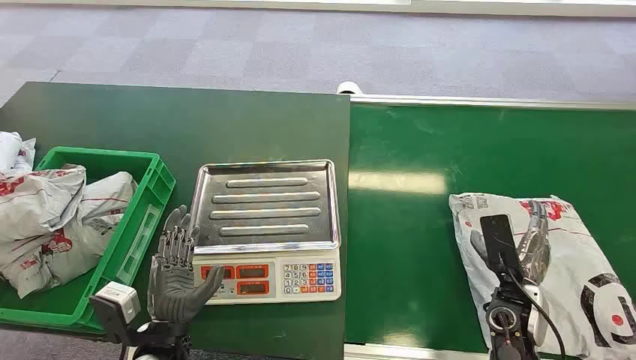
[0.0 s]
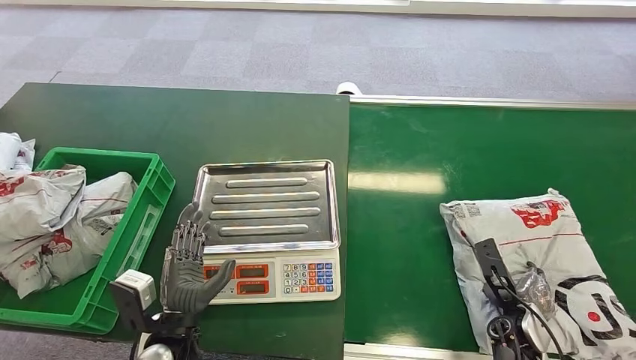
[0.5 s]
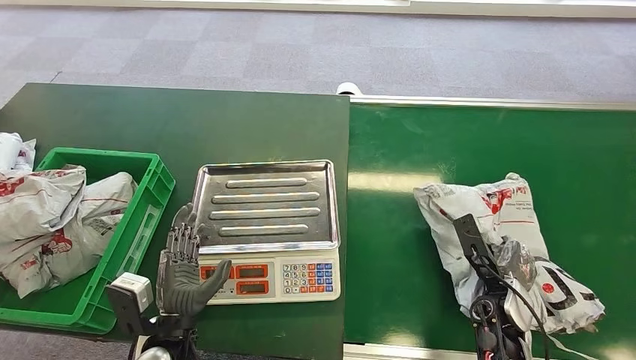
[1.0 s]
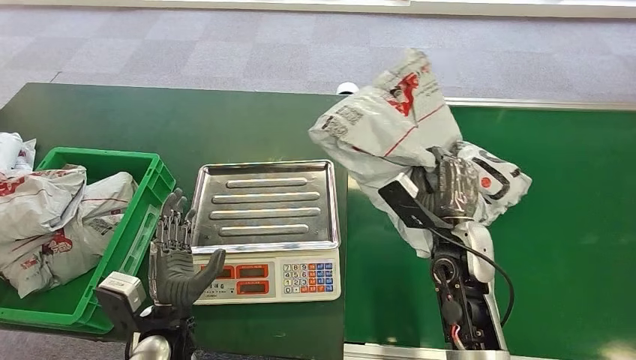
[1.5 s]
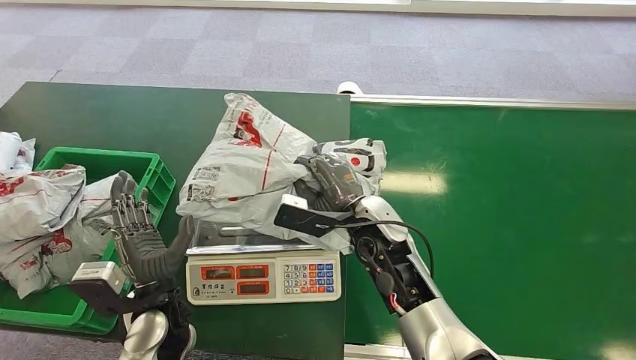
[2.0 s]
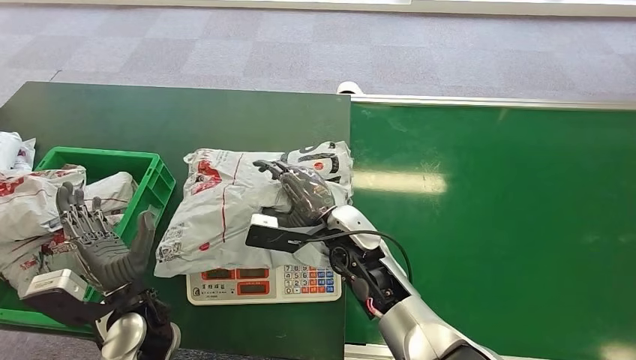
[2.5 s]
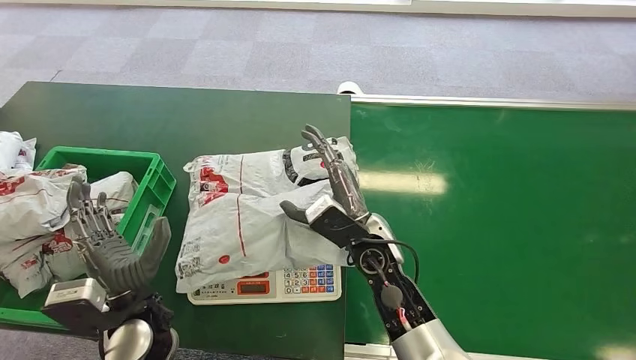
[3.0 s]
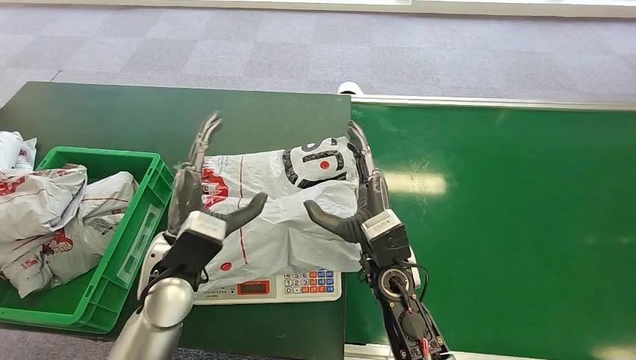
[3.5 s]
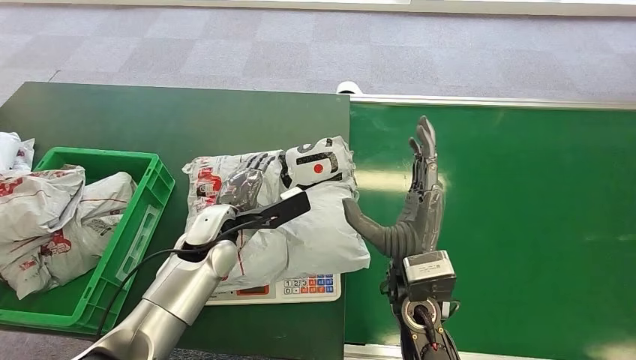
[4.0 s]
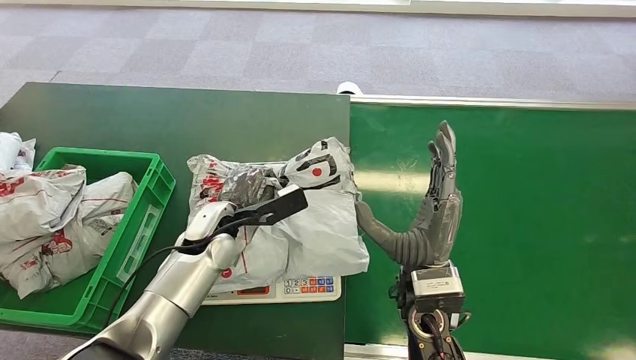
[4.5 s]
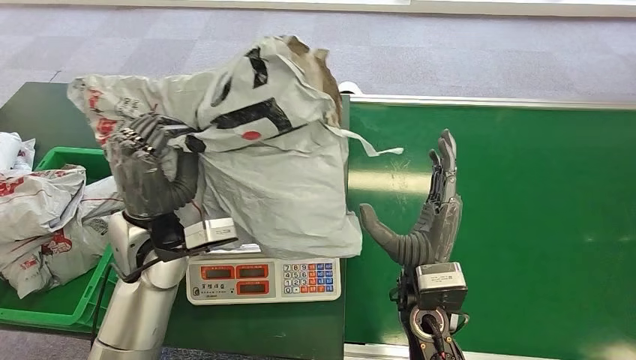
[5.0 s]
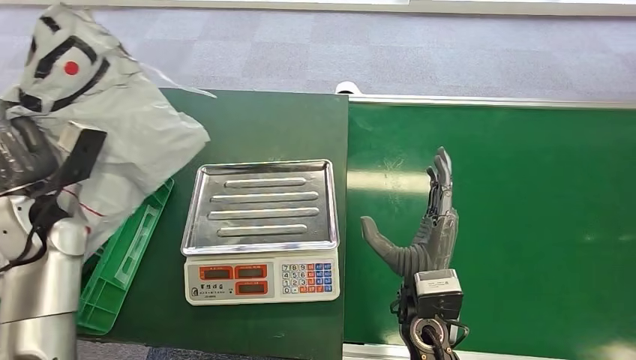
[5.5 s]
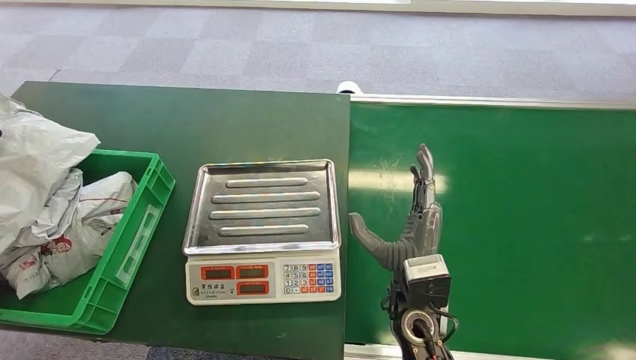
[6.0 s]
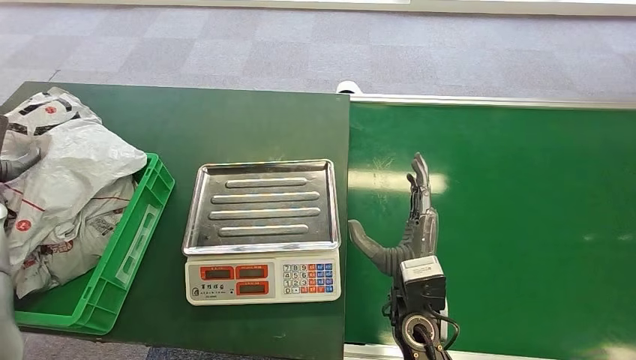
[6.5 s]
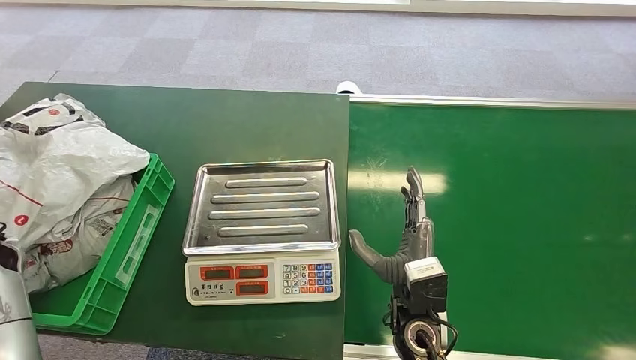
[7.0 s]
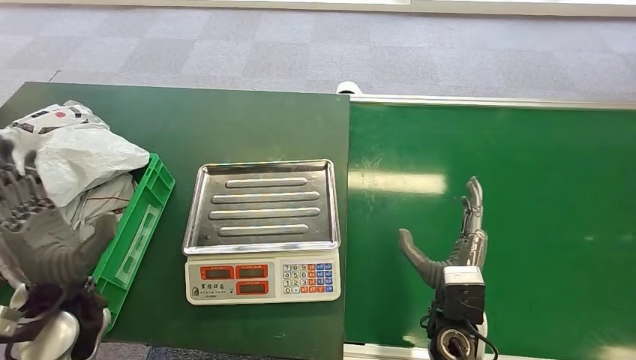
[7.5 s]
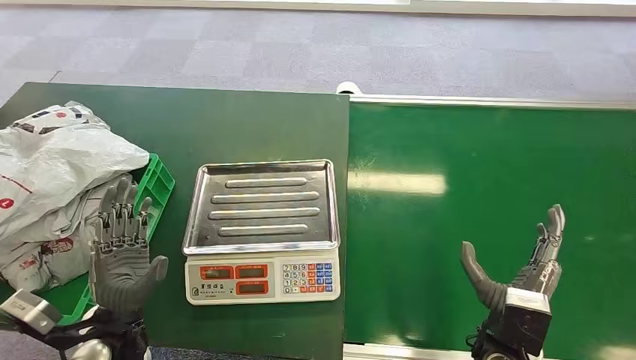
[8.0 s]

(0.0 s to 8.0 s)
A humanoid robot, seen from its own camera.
Task of the whole recording: Weigh the package on the weighing device and place it in the left basket.
Step, 0.0 s - 1.0 s: Pick up the package from the conveyor belt.
Step, 1.5 s - 4.0 s: Place the package onto the inbound machine.
Step, 4.5 s - 5.5 s: Pick up the package from the inbound machine.
Step, 6.0 s - 7.5 s: Place the package into the parcel locker.
4.0 s - 6.0 s: The left hand goes some 40 cm to the left.
6.0 s - 8.0 s: The left hand shifts some 35 cm to the right and backward, while the right hand travels to the right by some 15 cm.

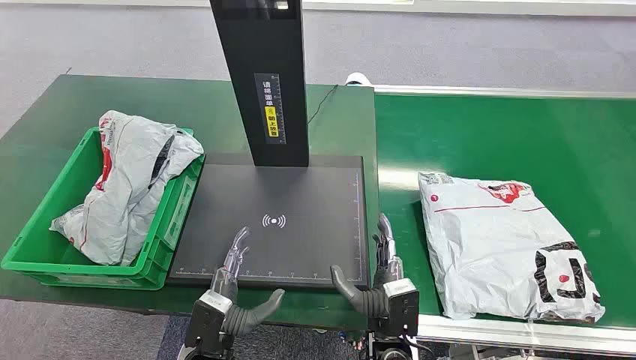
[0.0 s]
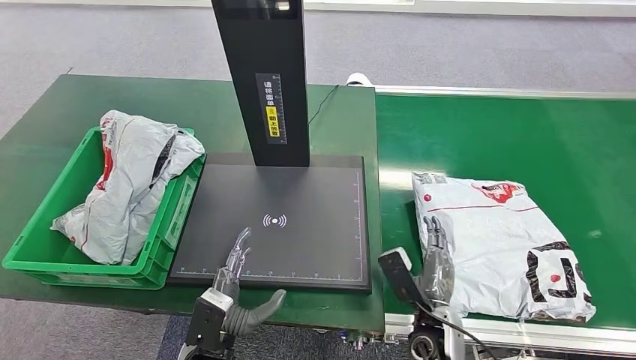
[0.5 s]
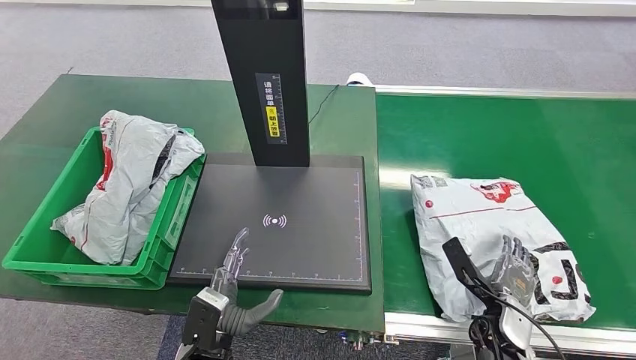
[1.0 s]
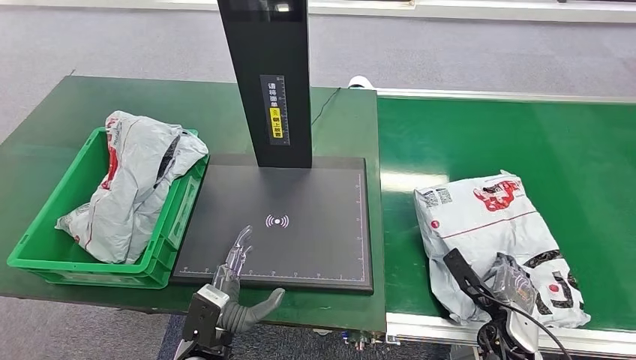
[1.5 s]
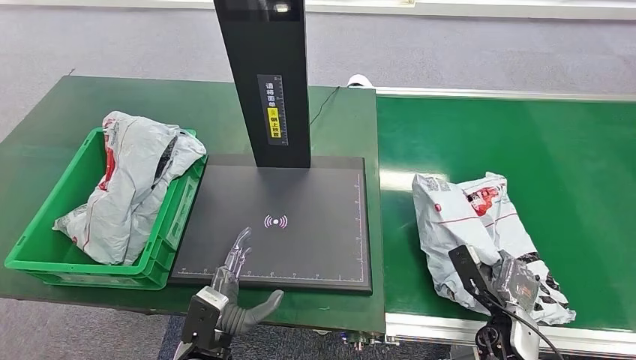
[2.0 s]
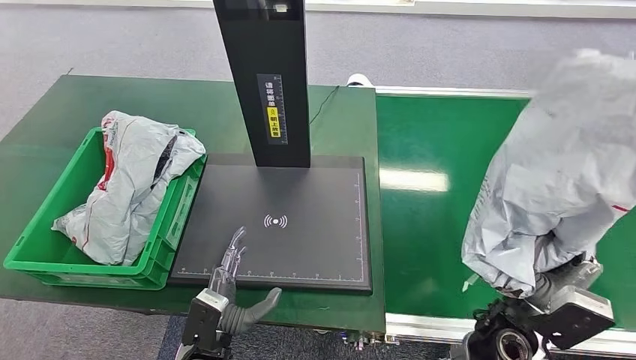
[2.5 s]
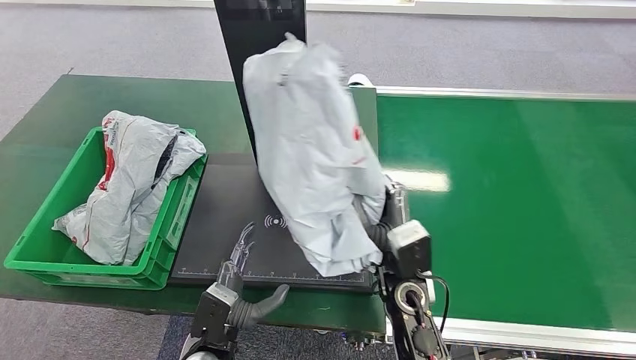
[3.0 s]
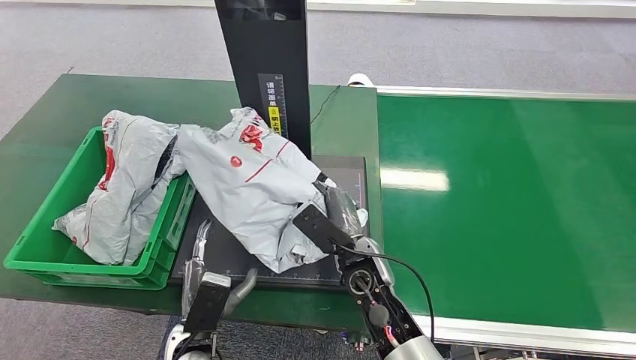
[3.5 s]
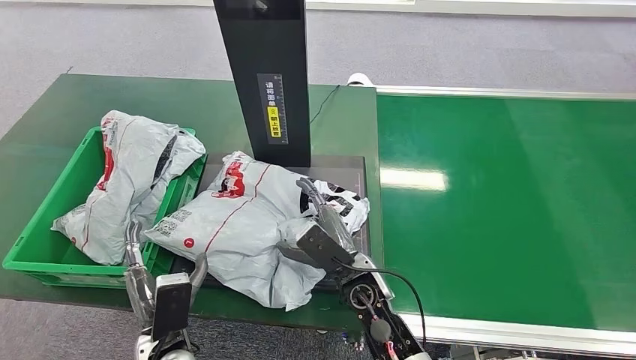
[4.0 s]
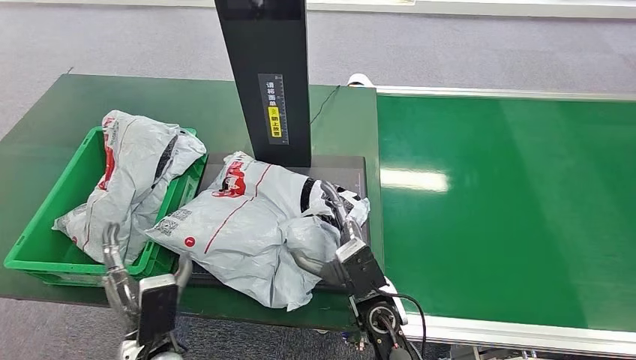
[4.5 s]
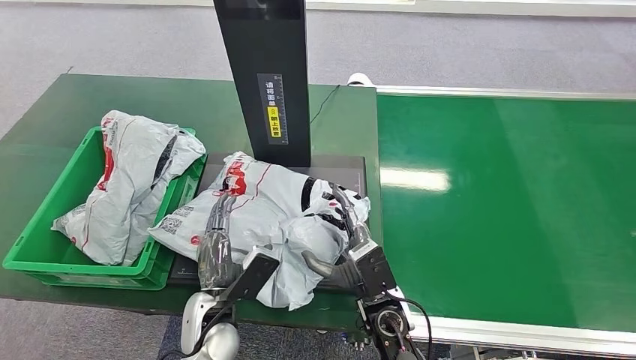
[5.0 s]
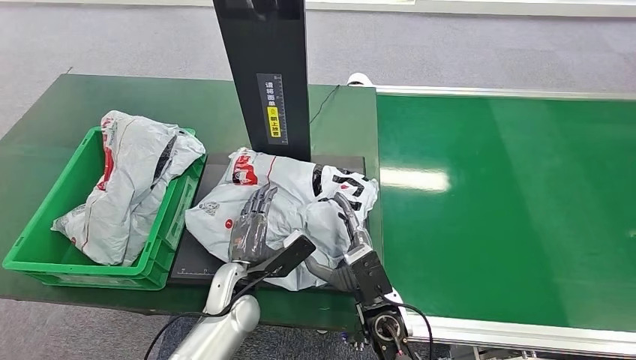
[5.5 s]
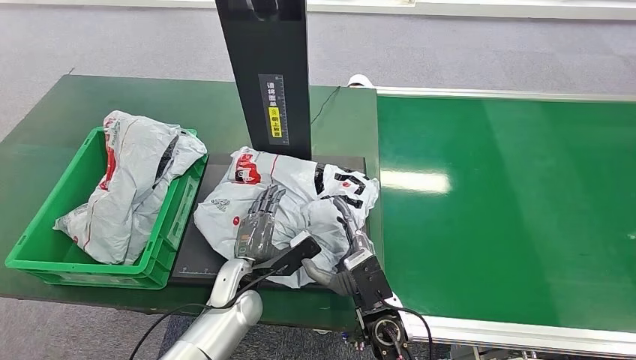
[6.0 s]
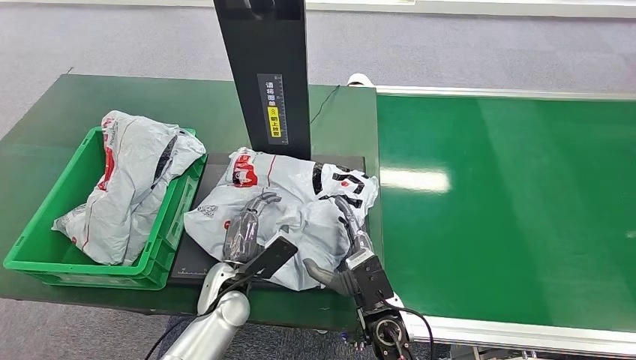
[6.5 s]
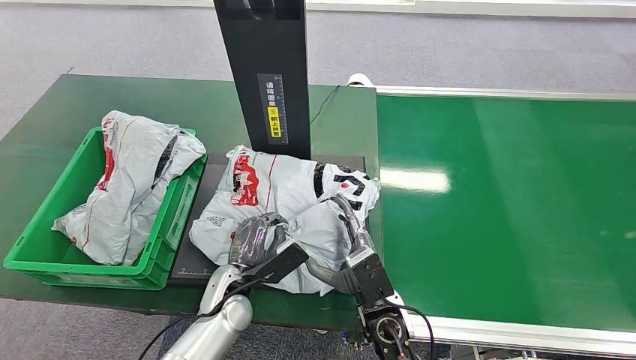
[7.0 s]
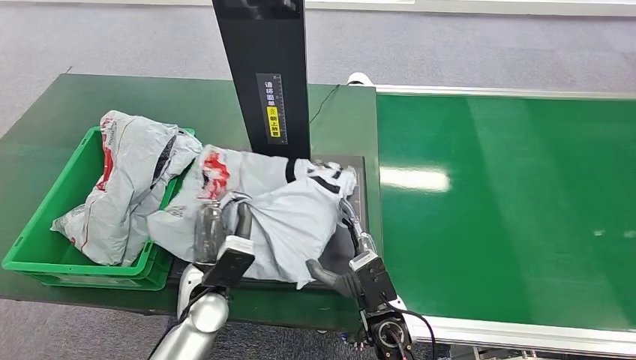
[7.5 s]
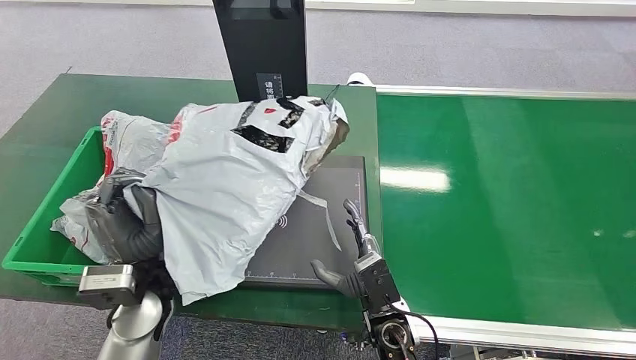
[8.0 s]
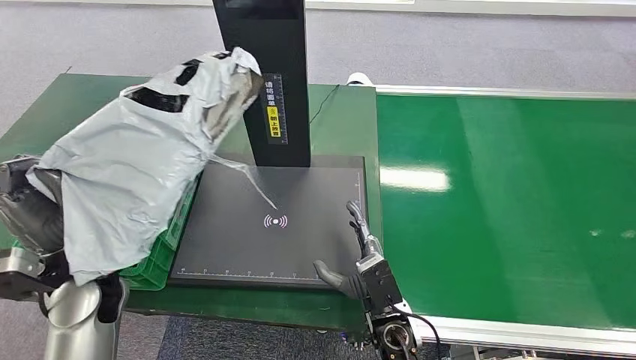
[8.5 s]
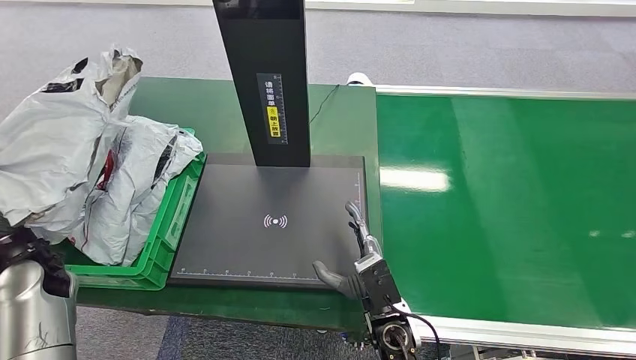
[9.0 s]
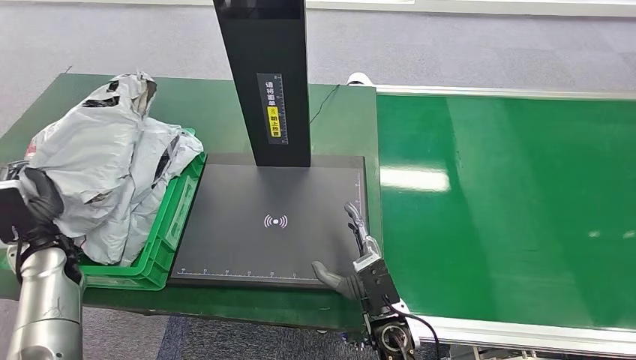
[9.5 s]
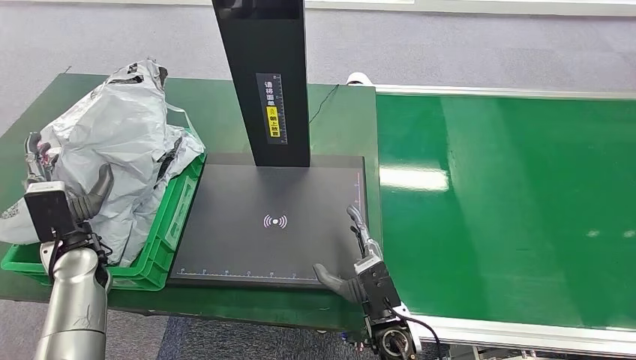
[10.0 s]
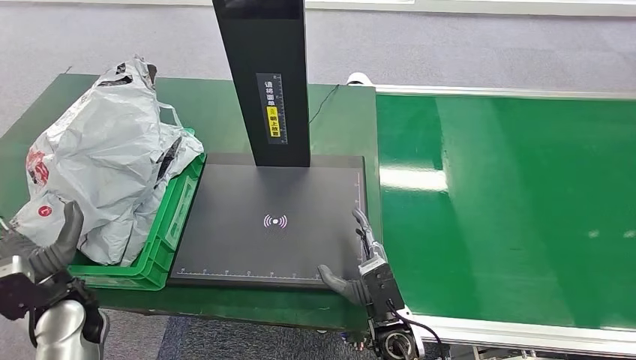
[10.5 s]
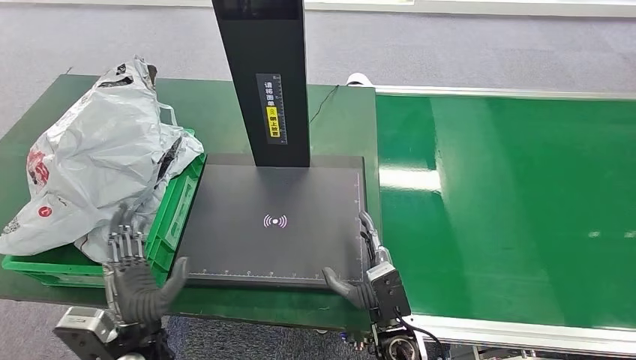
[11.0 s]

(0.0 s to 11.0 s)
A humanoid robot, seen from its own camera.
Task of the whole recording: Weigh the package on the weighing device and place it in the left basket.
Step, 0.0 s - 2.5 s: Pick up the package from the conveyor belt.
Step, 3.0 s - 4.5 s: Place the package onto the inbound machine.
Step, 5.0 s - 8.5 s: Pick up the package from the inbound machine.
Step, 9.0 s - 11.0 s: Place the package into the parcel locker.
3.5 s - 5.5 s: The right hand is displaced backward by approximately 5 cm, while the left hand is displaced forward by roughly 10 cm.
5.5 s - 7.5 s: The left hand shifts by about 5 cm.
9.0 s - 11.0 s: The left hand goes about 25 cm to the right and backward.

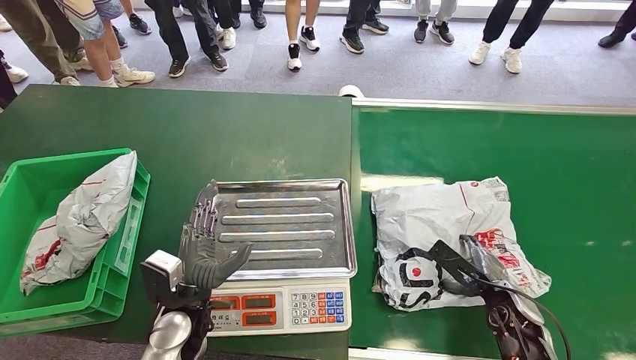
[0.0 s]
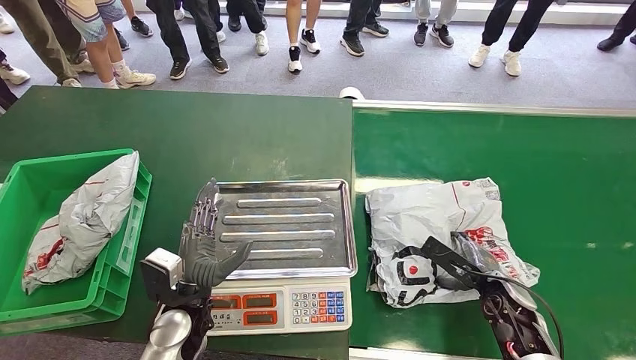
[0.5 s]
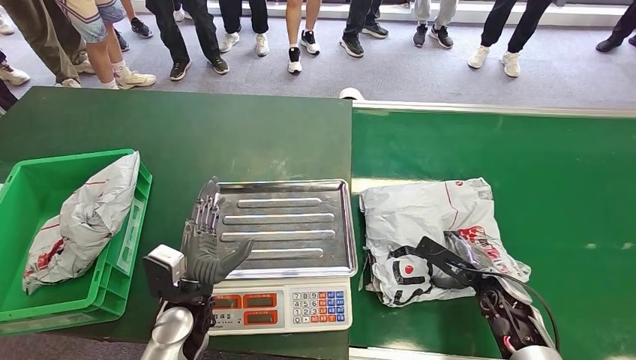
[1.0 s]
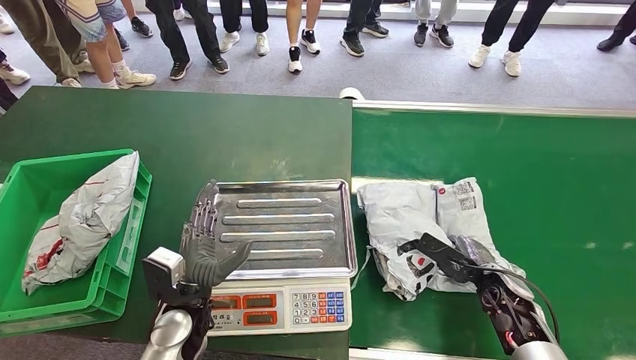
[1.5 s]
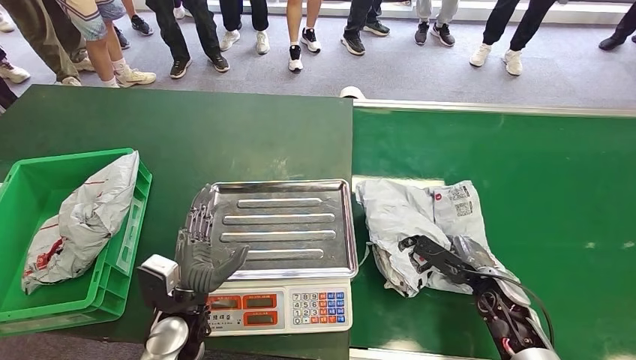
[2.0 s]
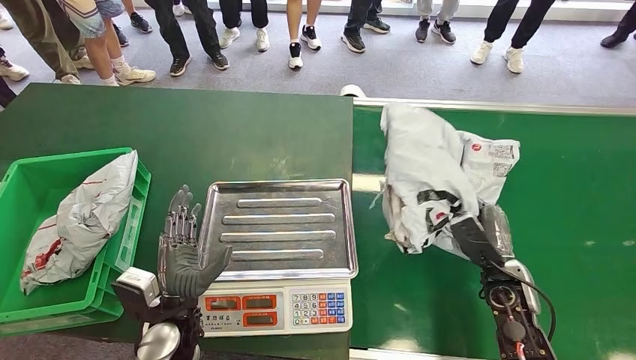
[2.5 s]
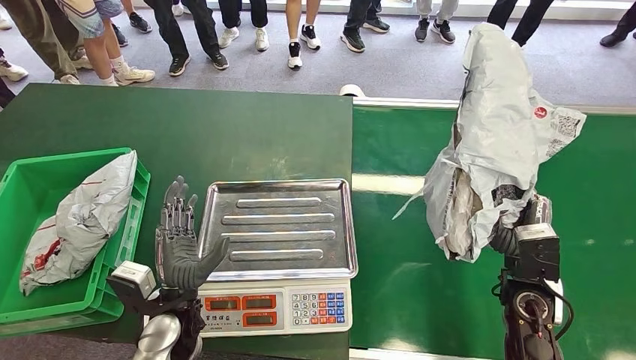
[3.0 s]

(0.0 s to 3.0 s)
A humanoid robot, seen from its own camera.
Task of the whole recording: Weigh the package on the weighing device and place it in the left basket.
0.0 s - 1.5 s: The hands move only a little.
